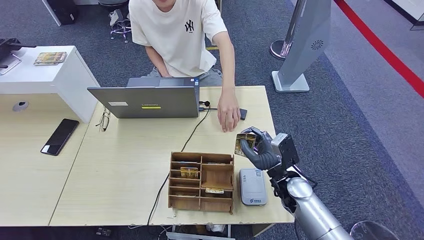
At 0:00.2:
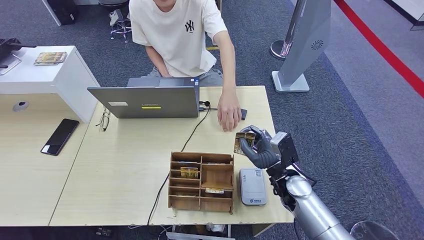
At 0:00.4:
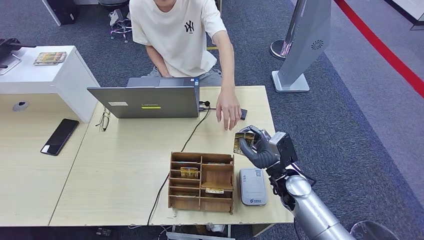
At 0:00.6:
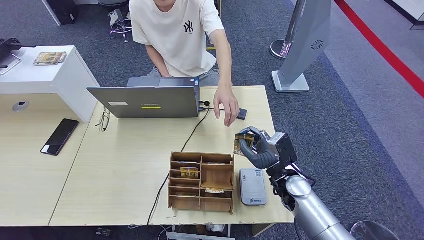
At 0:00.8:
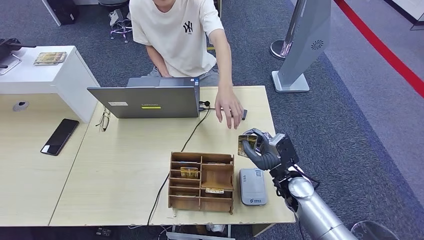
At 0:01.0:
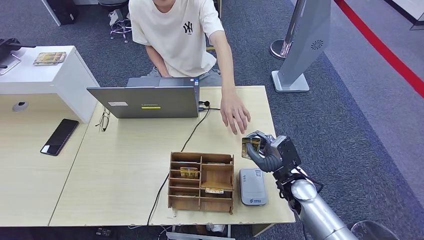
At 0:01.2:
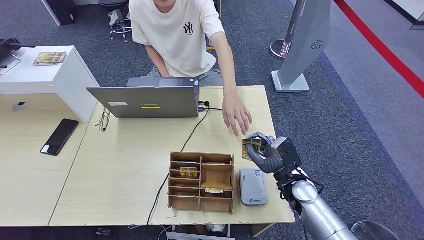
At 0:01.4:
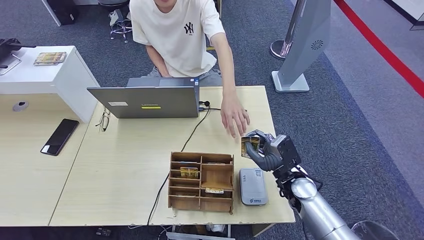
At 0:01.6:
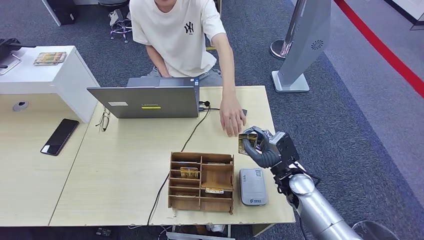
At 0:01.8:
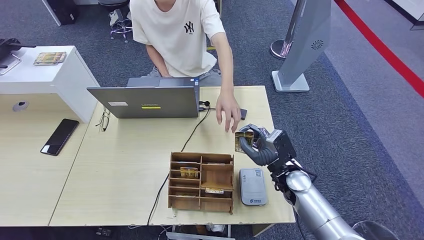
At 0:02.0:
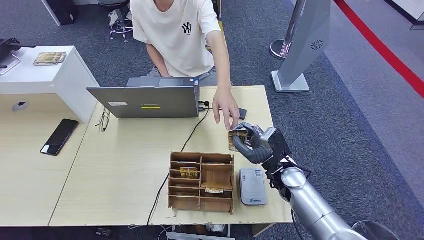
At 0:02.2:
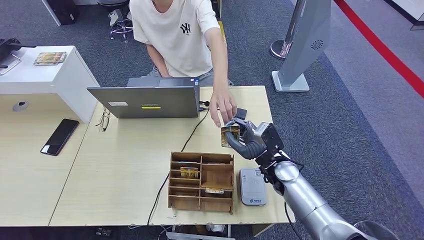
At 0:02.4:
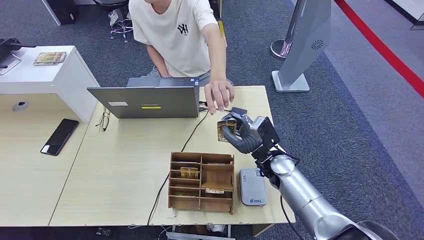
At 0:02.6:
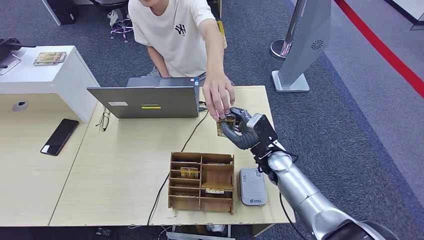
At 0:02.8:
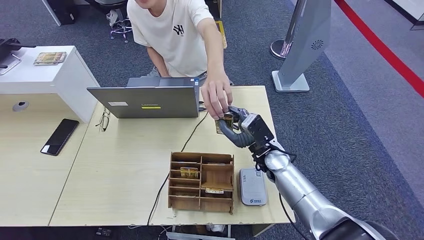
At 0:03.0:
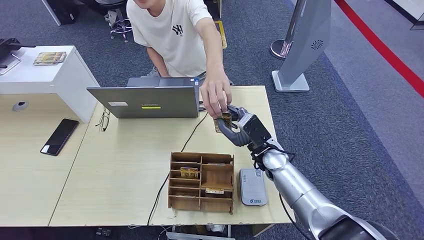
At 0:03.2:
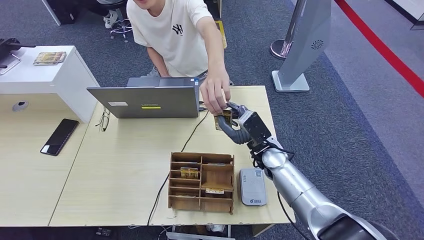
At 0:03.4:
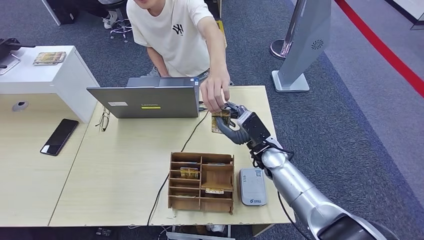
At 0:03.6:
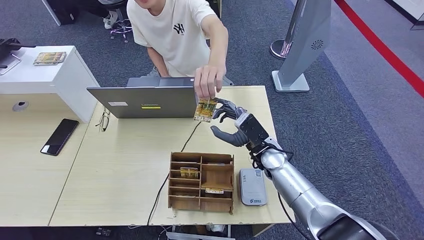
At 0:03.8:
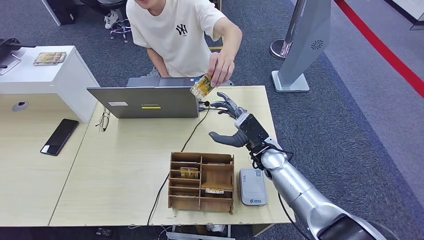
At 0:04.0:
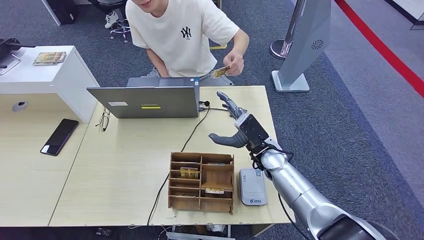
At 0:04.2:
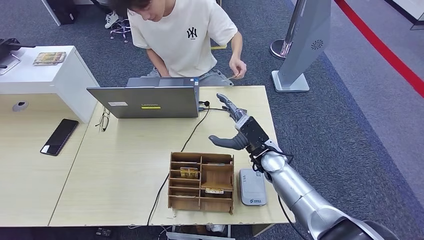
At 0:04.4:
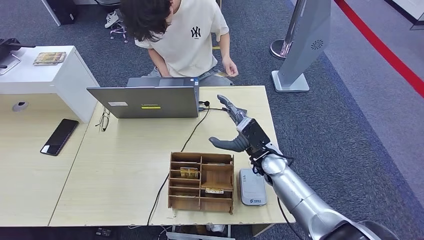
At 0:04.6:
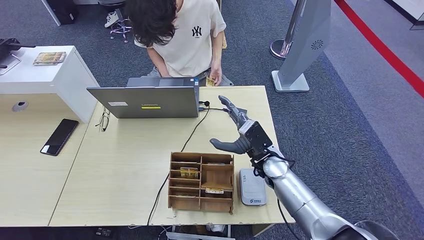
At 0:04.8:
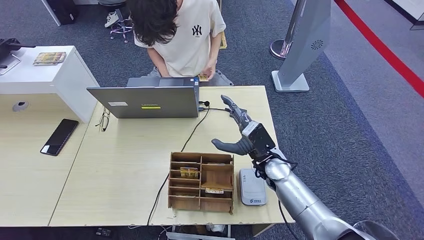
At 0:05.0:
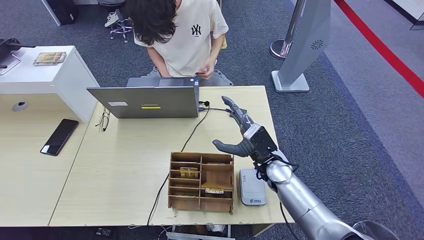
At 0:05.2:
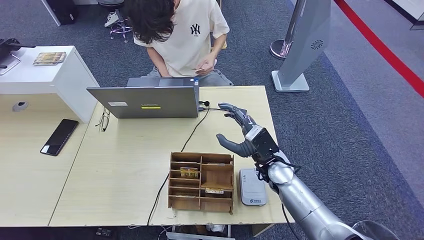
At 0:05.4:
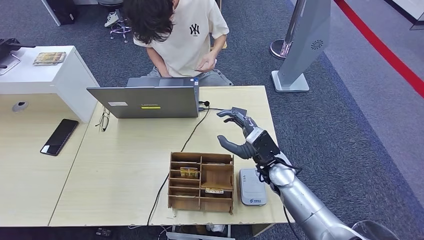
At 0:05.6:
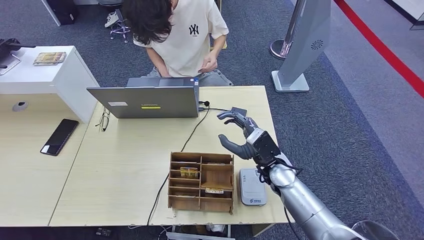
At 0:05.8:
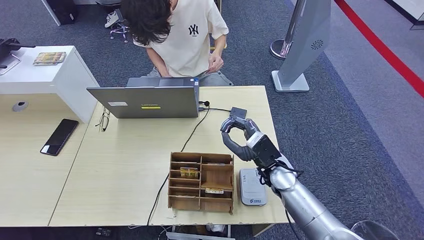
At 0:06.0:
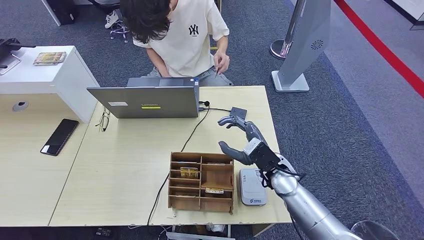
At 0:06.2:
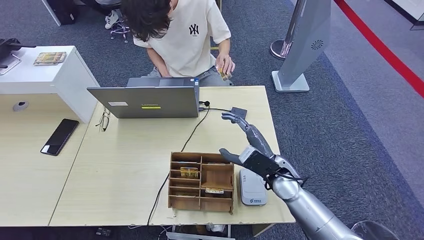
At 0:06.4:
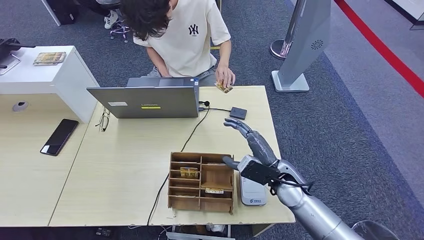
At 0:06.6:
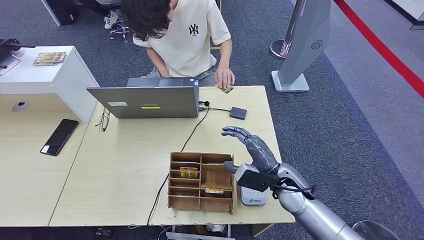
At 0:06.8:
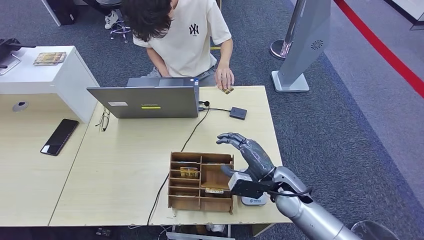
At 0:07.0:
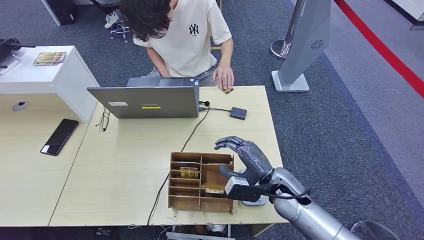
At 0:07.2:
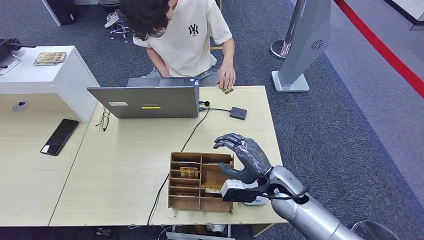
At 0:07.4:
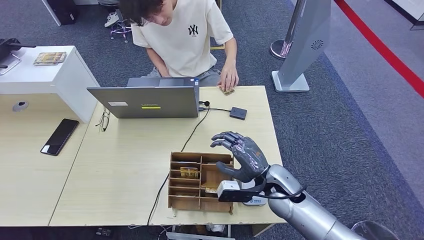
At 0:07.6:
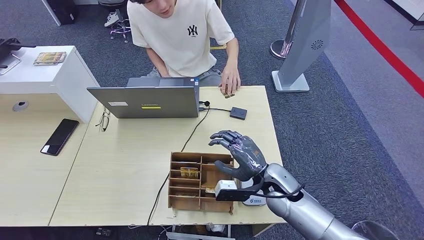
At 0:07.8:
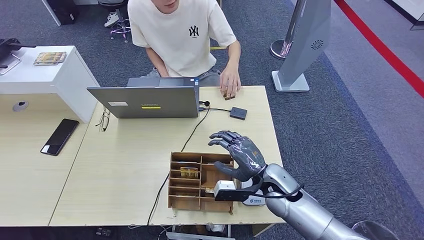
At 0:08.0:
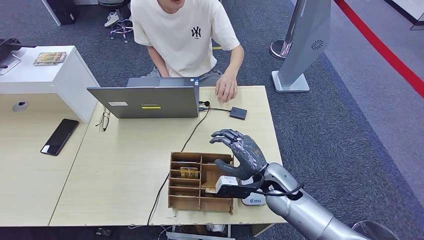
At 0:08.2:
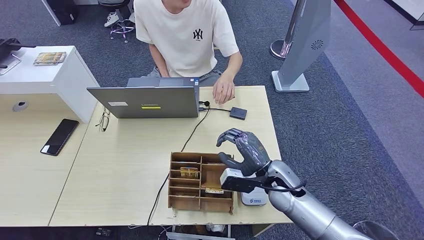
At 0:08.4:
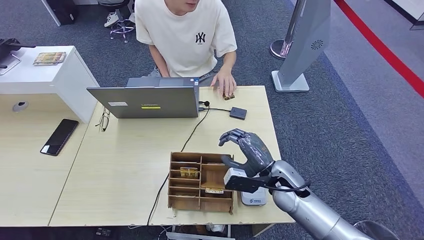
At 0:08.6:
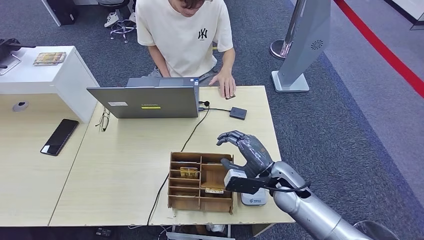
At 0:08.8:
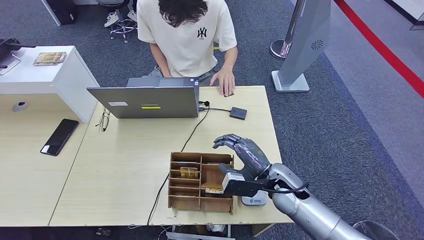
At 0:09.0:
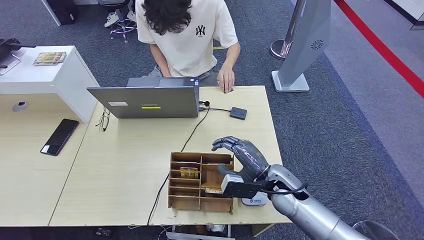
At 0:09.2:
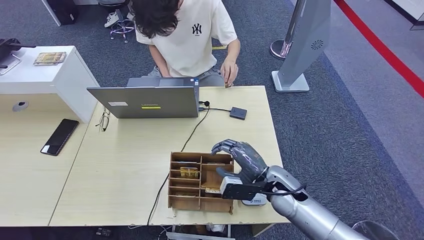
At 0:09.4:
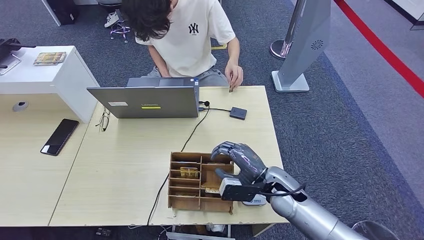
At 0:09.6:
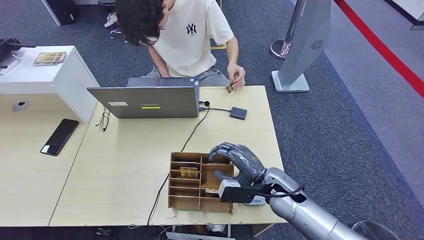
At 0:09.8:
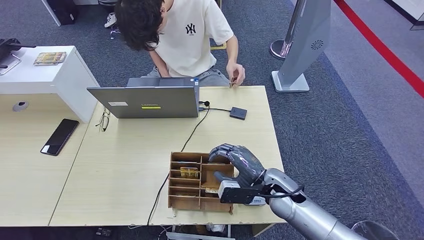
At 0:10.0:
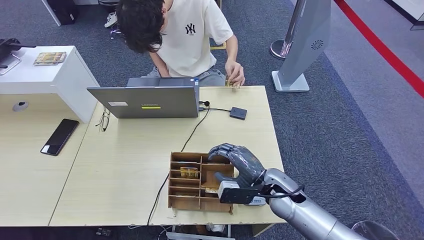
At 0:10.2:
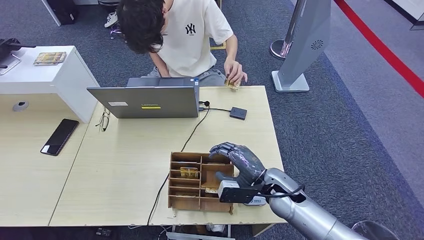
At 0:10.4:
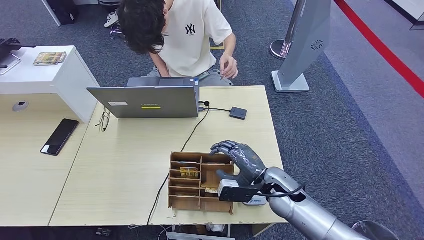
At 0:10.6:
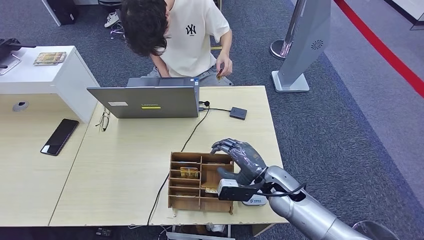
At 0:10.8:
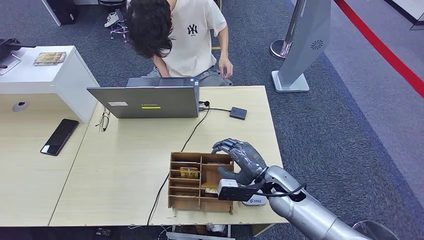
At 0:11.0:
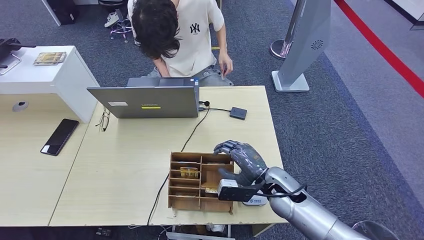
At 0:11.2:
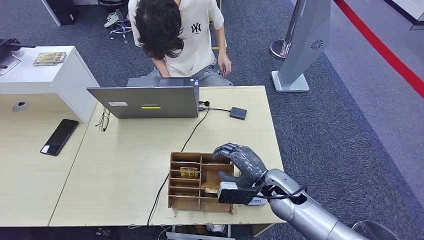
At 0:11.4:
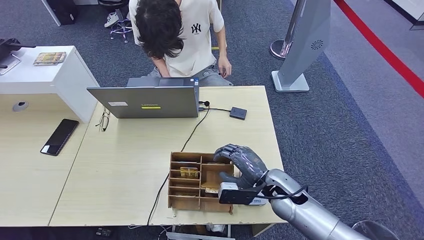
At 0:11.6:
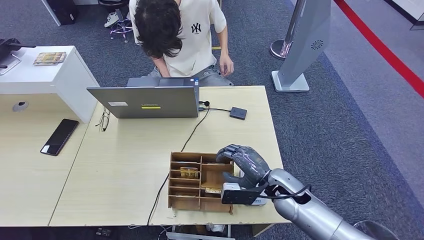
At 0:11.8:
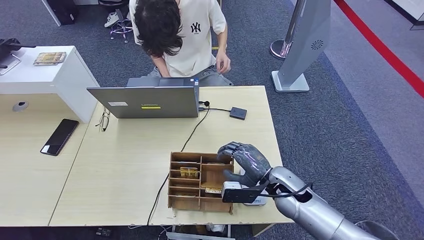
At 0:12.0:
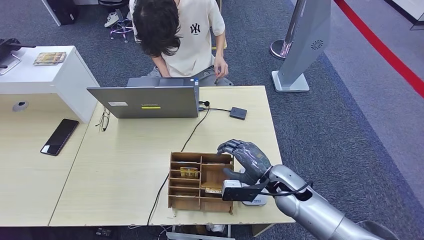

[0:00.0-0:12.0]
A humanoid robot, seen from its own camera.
Step, 0:00.0 to 0:04.4: Hand the ID card to the person.
0:00.0 to 0:01.6: The hands stay close to where they were, moving slightly.
0:01.6 to 0:03.0: The right hand moves forward and to the left, roughly 10 cm.
0:03.0 to 0:04.4: The two hands keep their place.
0:04.4 to 0:06.0: The hands make only small movements.
0:07.6 to 0:09.0: The hands make only small movements.
0:09.0 to 0:10.4: Both hands stay put.
0:10.4 to 0:12.0: The hands move only a little.

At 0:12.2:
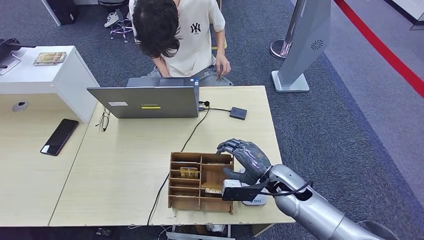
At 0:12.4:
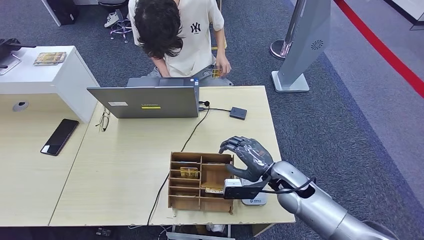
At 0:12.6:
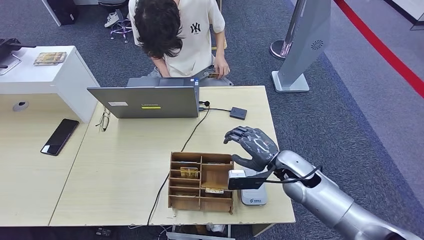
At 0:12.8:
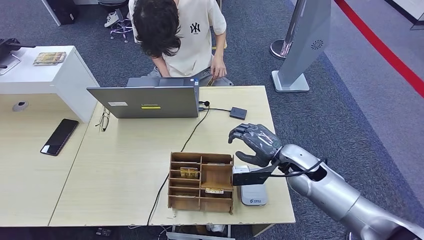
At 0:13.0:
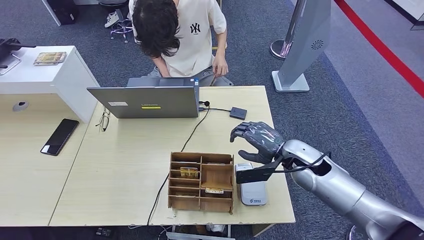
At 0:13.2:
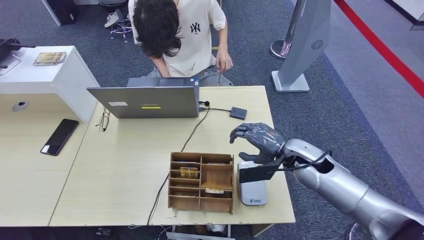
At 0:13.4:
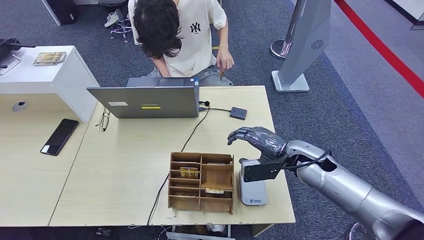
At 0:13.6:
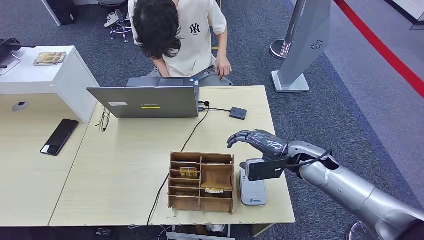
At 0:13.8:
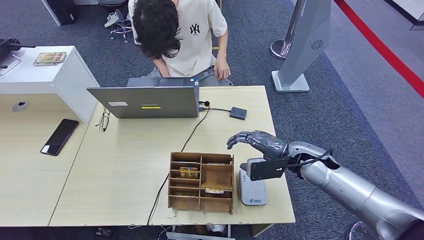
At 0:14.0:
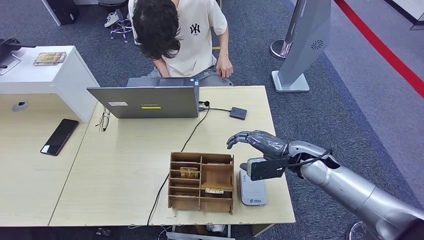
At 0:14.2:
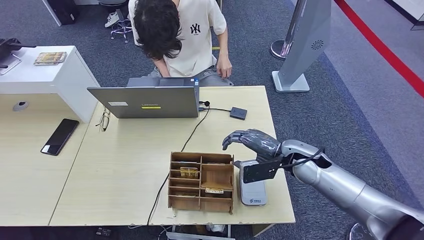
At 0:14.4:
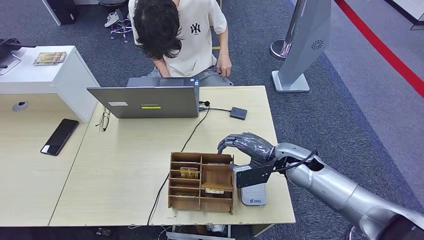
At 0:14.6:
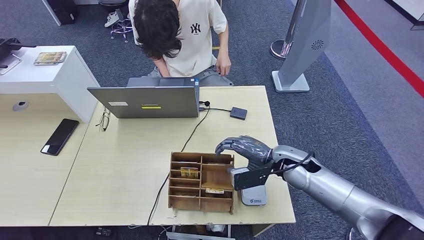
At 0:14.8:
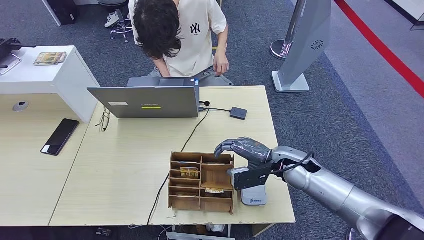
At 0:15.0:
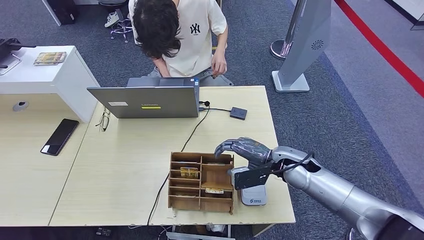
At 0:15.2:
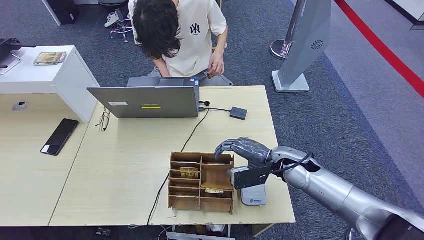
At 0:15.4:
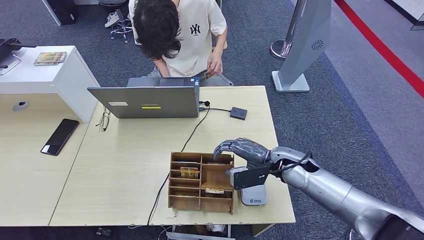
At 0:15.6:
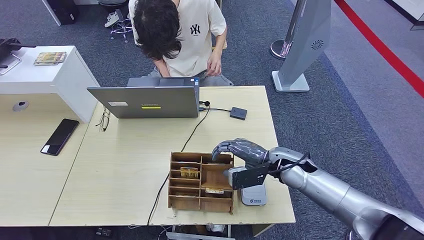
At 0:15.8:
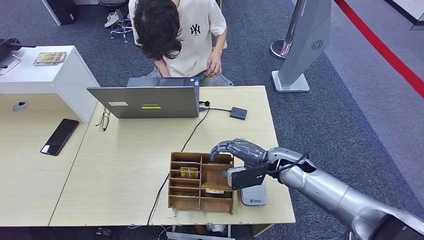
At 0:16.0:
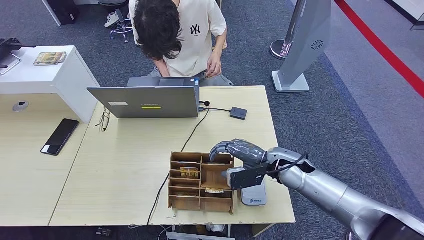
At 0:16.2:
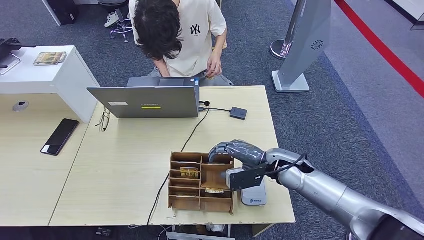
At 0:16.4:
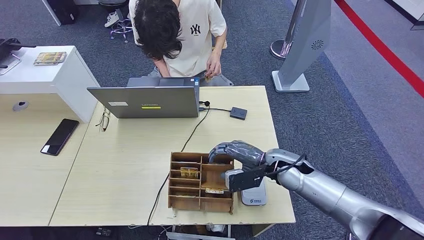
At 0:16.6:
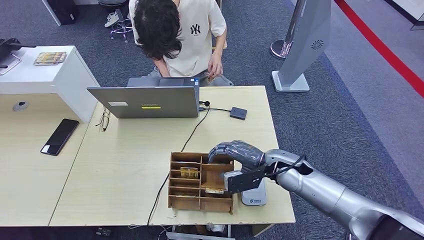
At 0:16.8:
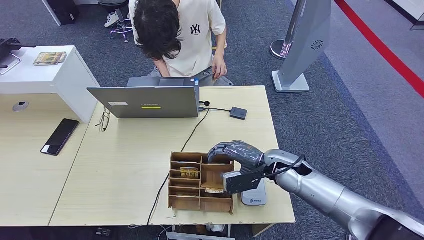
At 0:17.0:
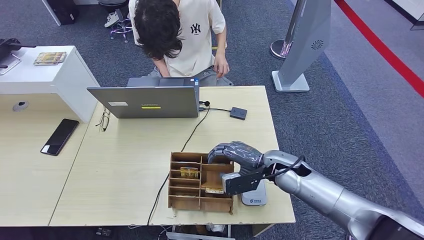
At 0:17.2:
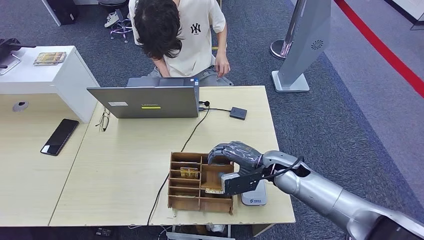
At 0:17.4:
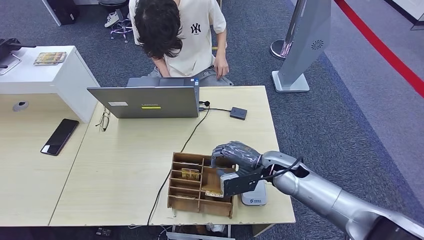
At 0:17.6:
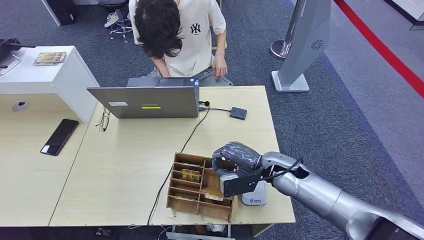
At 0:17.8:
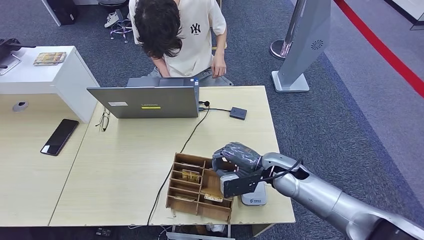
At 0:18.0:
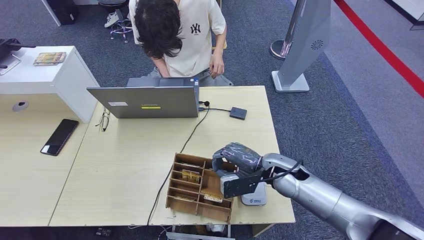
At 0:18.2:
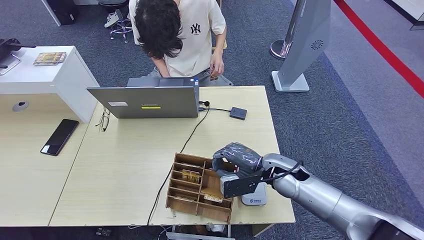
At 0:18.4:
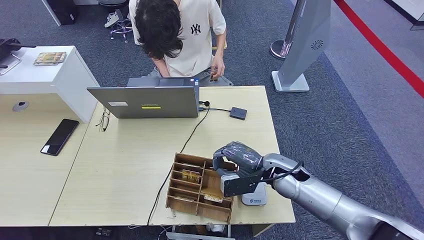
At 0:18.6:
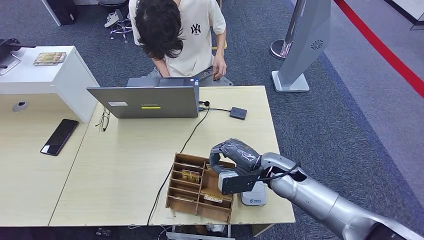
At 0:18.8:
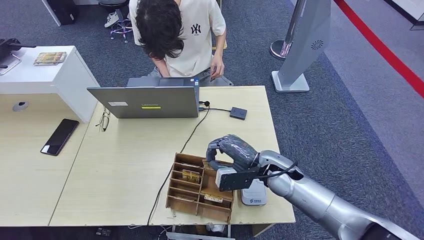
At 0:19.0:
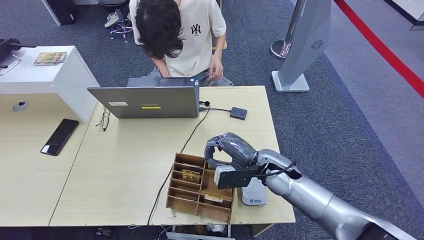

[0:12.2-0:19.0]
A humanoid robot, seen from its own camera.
0:12.2 to 0:13.6: The right hand moves to the right and upward, some 10 cm.
0:13.6 to 0:16.2: The hands move only a little.
0:16.2 to 0:19.0: There are only small adjustments of the hands.
